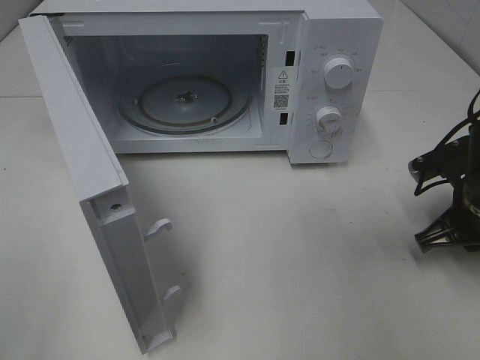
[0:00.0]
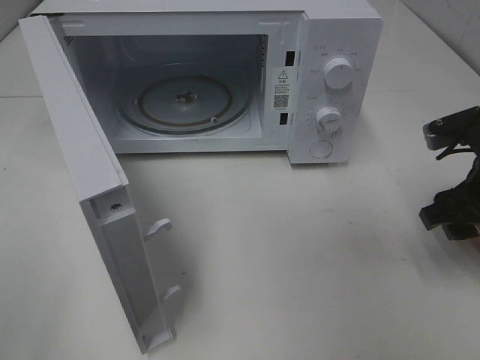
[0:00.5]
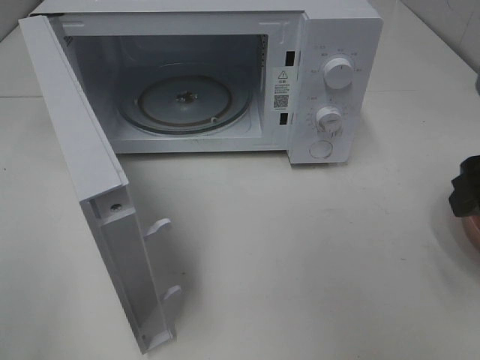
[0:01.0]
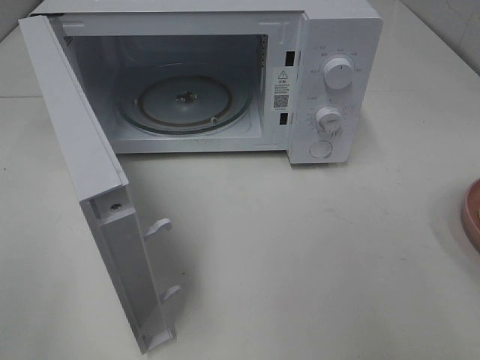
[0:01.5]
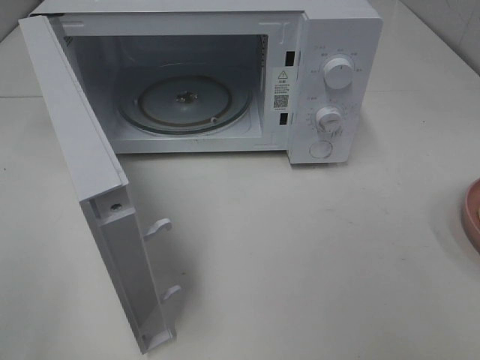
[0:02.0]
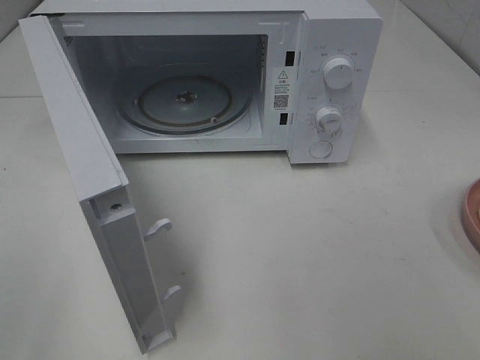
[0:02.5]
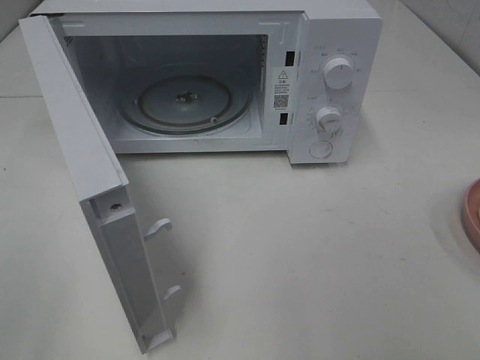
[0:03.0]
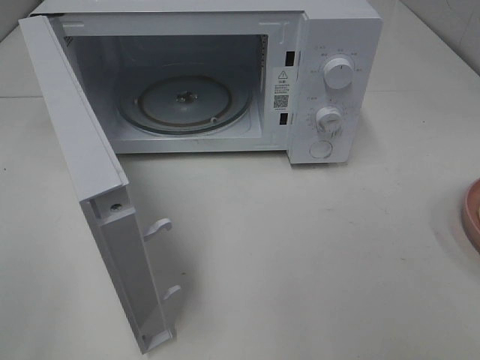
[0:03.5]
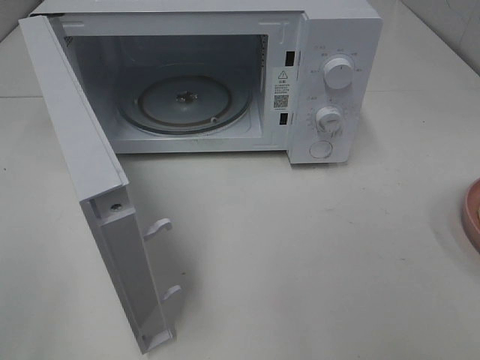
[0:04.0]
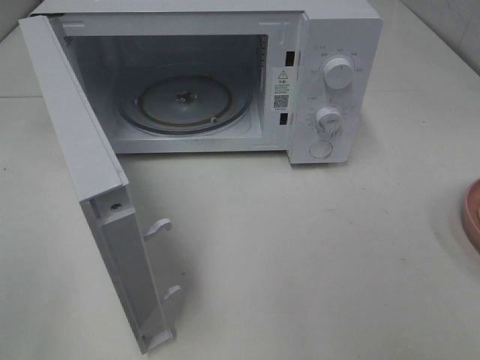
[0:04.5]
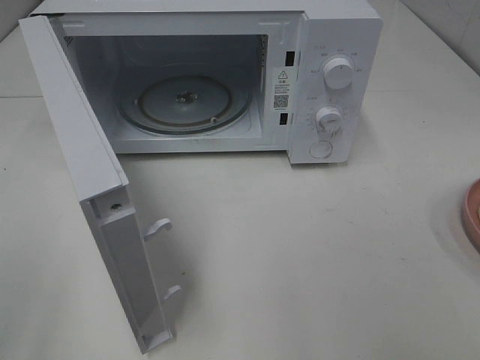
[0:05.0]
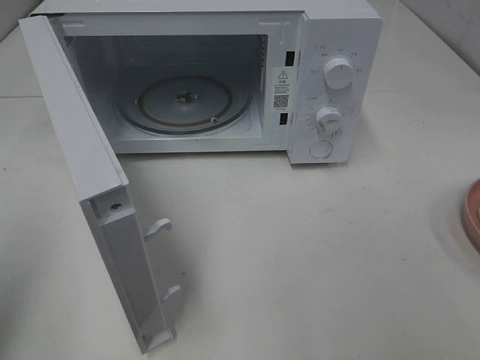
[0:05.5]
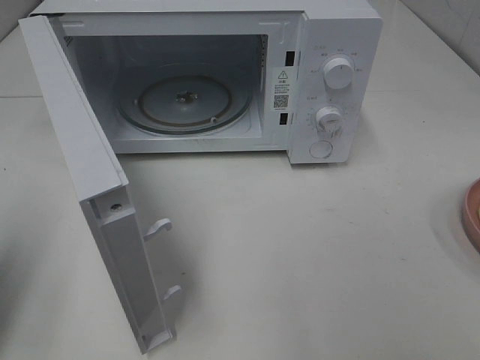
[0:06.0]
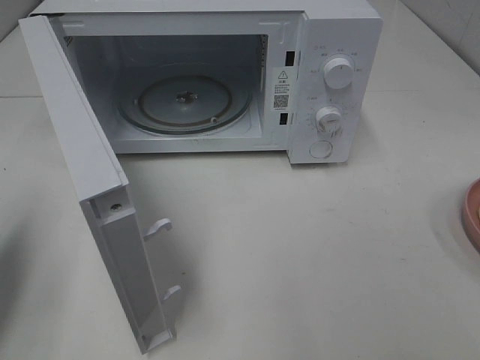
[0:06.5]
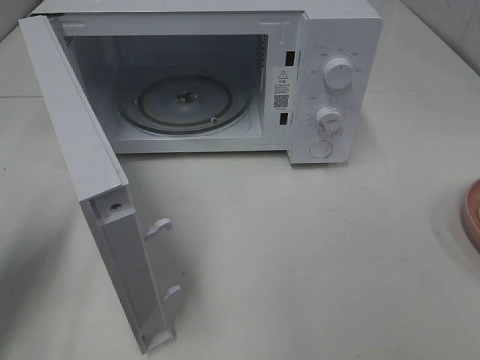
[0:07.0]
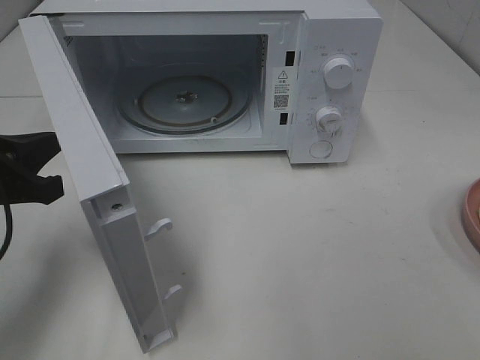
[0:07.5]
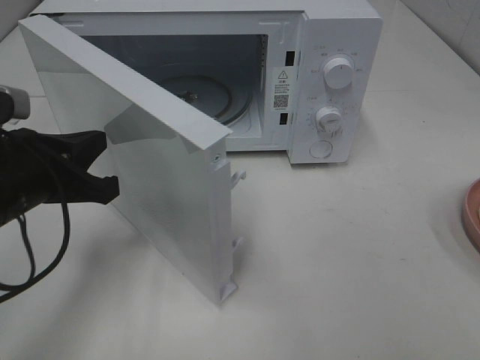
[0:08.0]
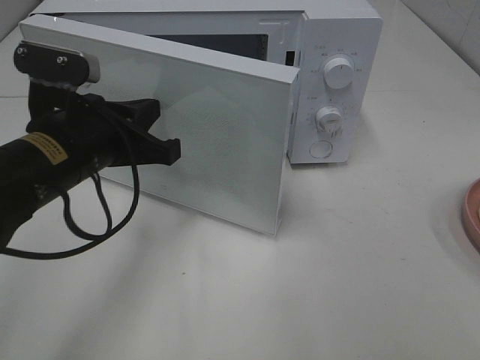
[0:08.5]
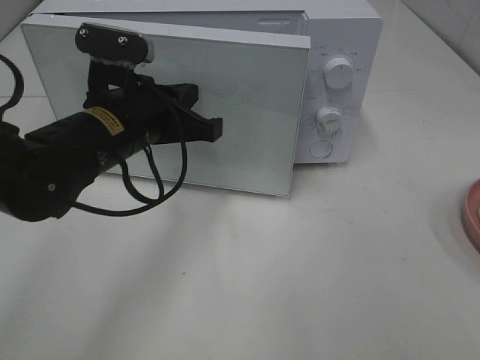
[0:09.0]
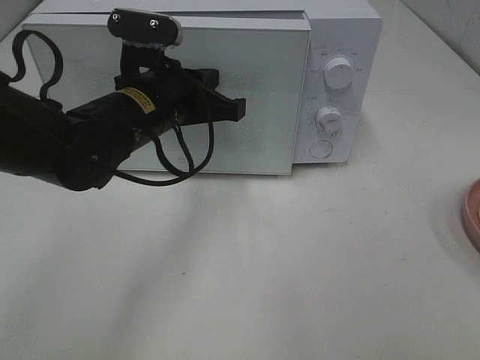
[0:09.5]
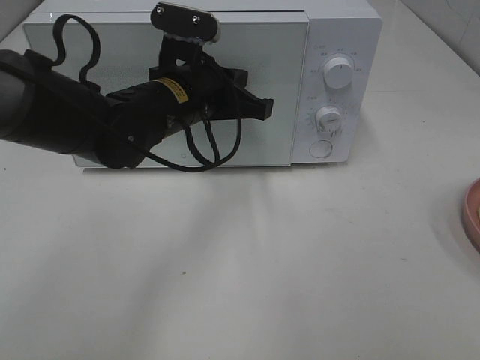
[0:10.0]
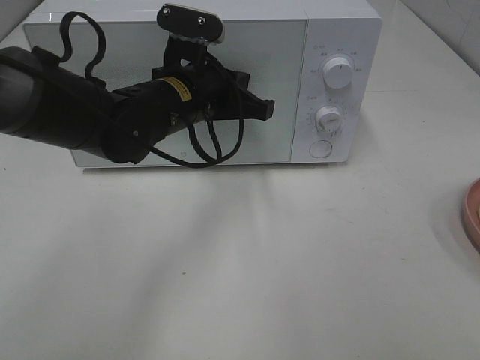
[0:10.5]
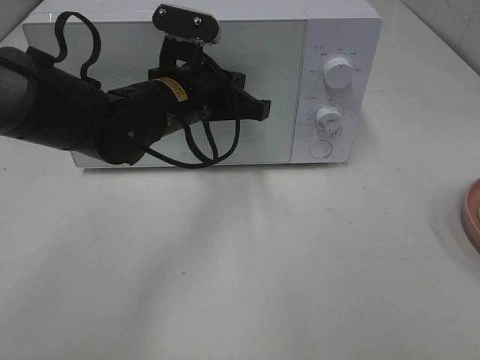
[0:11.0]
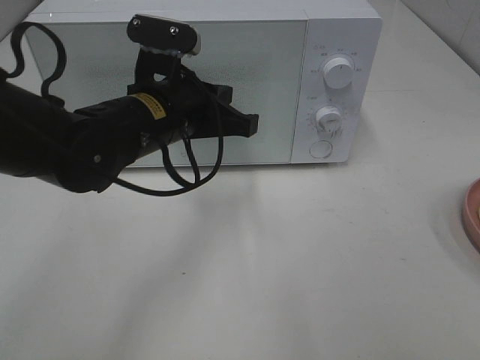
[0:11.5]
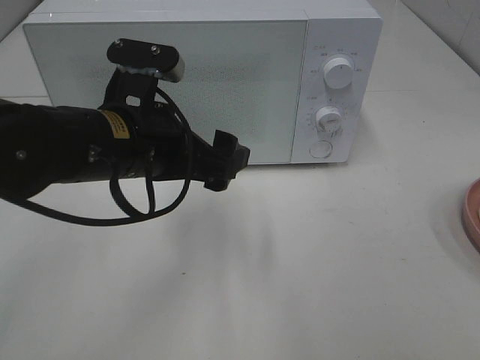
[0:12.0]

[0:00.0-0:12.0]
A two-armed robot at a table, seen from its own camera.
Task of the whole recording: Heat Sandwich.
Step, 0:00.5 to 0:11.0: Left hand: close the microwave door.
0:00.0 to 0:02.0: The right gripper shifts approximately 30 cm backward and upward, and opens its fingers.
0:04.0 to 0:06.0: The left gripper shifts some 15 cm forward, and closes its fingers.
0:06.0 to 0:08.0: The left gripper moves to the right, forward and downward, roughly 15 cm.
0:08.0 to 0:10.0: The left gripper travels to the right and forward by roughly 20 cm.
0:10.0 to 0:12.0: The left gripper goes approximately 10 cm backward, and opens.

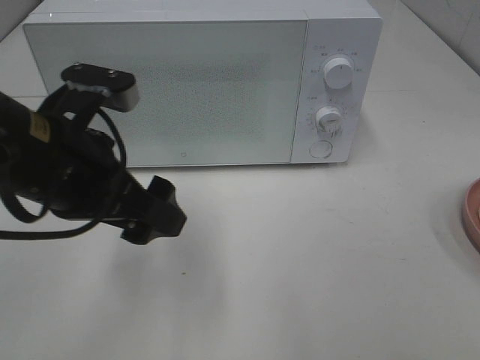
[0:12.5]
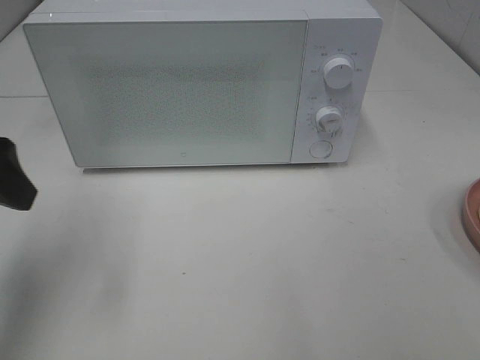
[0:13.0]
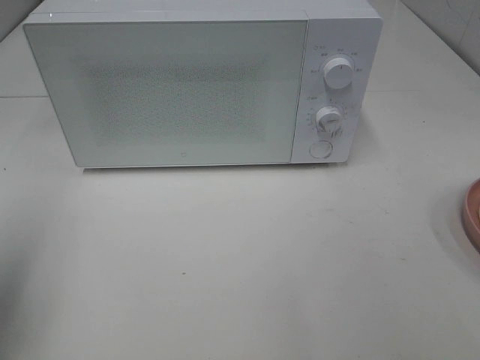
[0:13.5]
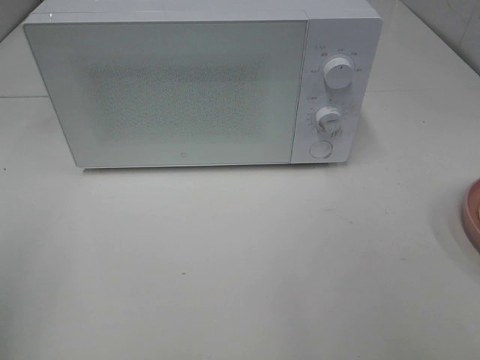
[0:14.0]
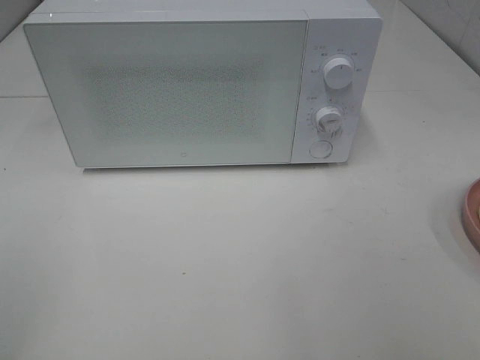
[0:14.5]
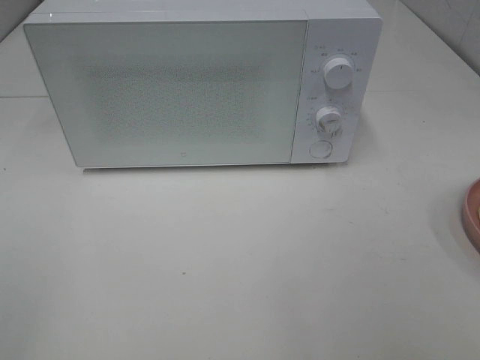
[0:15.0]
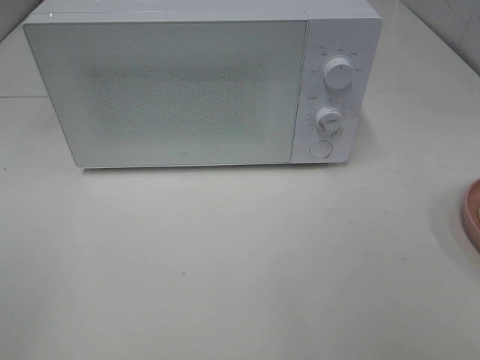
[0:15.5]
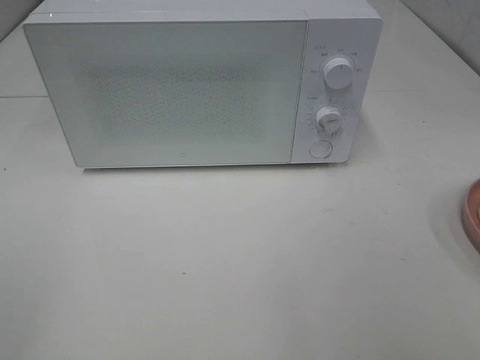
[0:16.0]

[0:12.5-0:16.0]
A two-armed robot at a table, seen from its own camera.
Task of the whole recording: Heat Sandwich.
0:12.5 to 0:14.5: The left gripper shifts about 25 cm backward and to the left.
